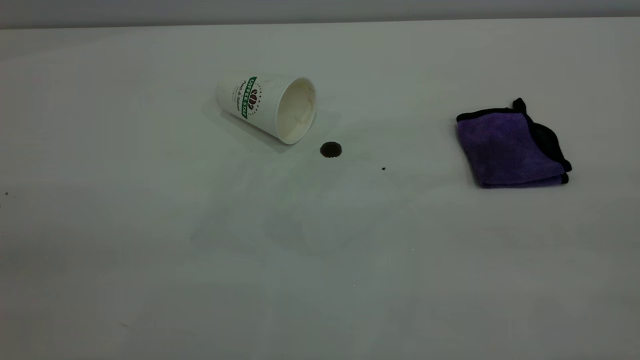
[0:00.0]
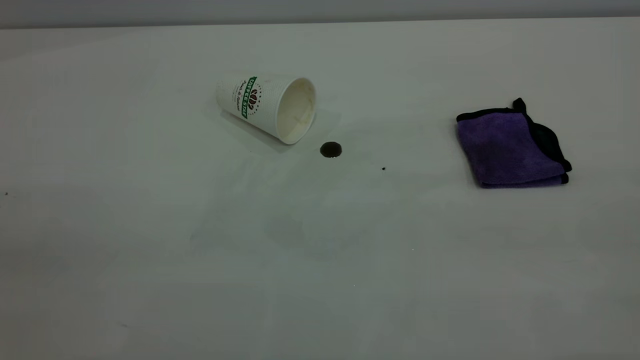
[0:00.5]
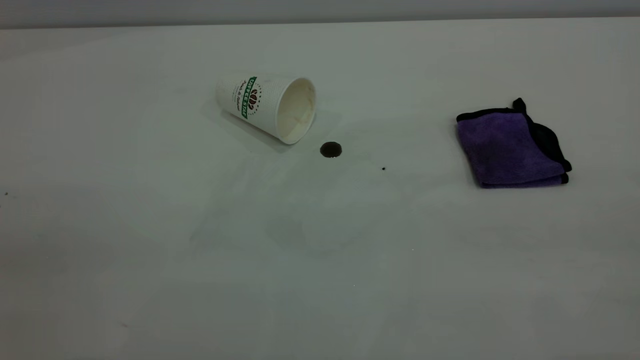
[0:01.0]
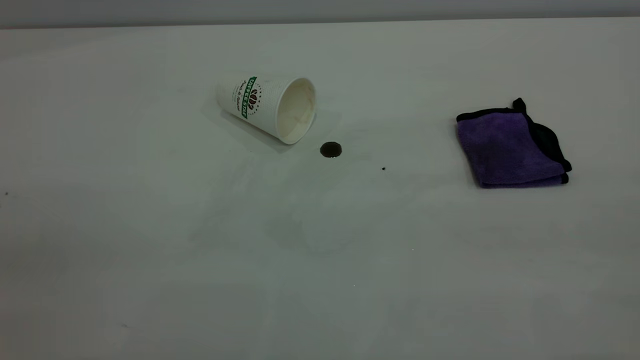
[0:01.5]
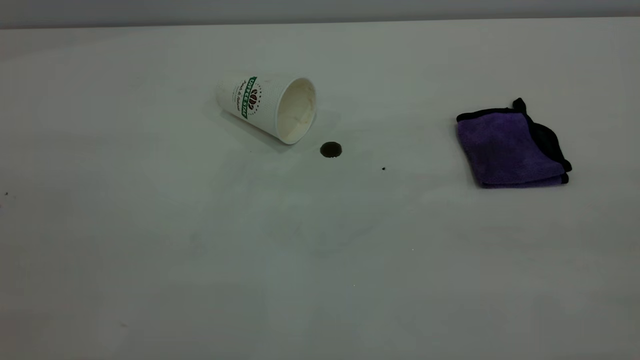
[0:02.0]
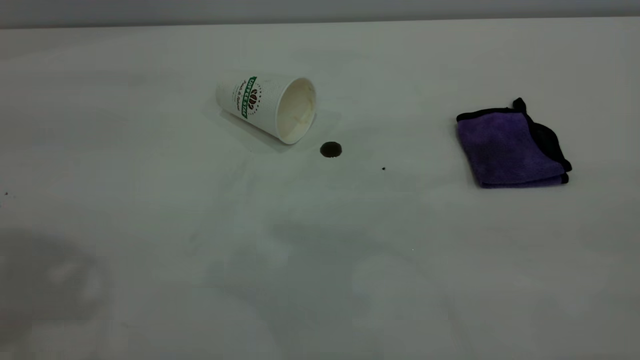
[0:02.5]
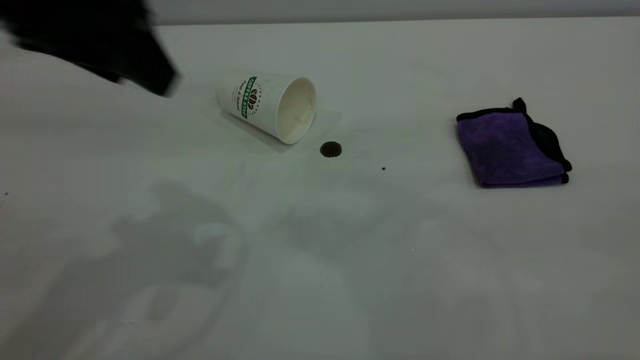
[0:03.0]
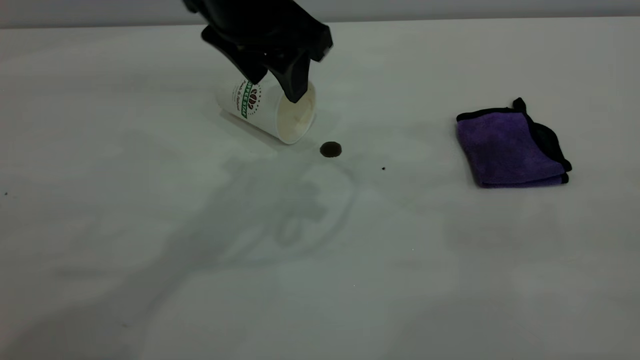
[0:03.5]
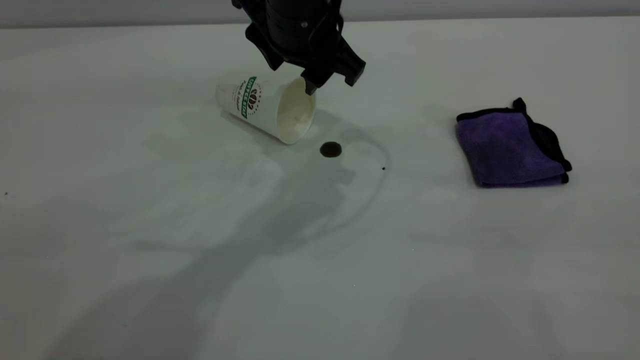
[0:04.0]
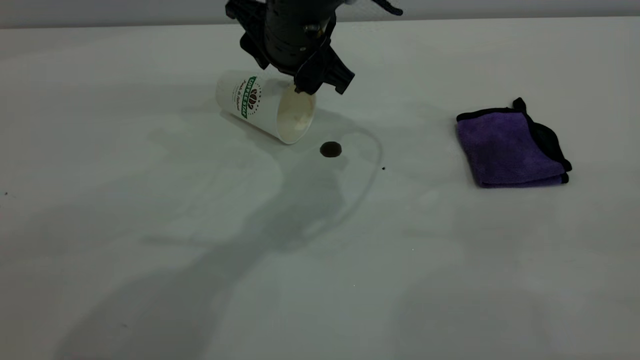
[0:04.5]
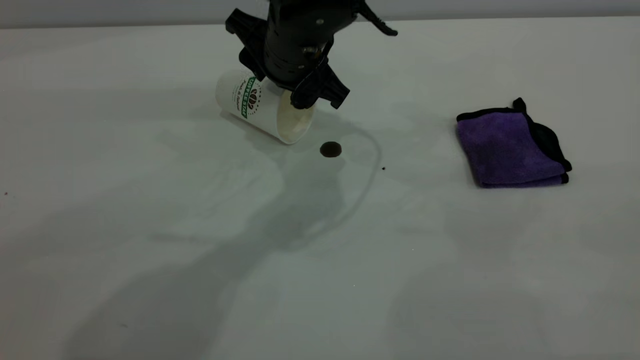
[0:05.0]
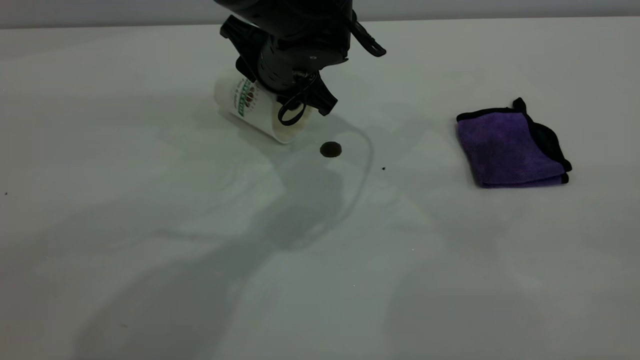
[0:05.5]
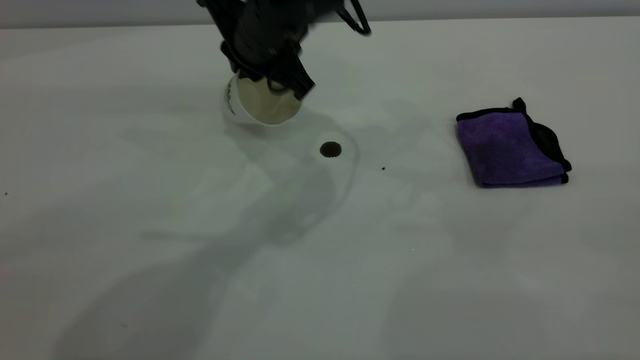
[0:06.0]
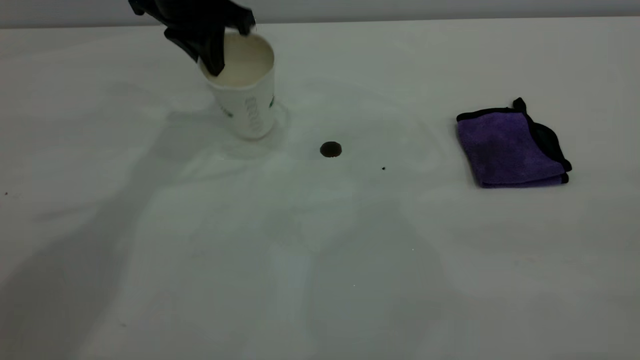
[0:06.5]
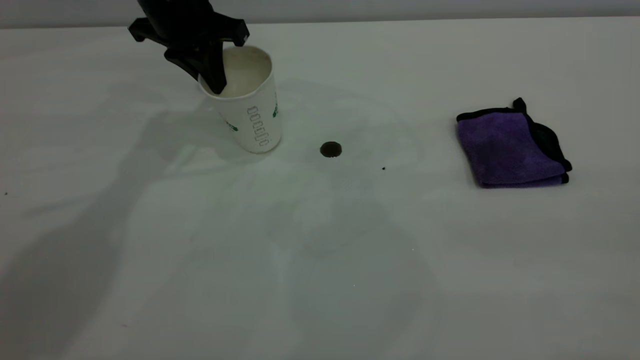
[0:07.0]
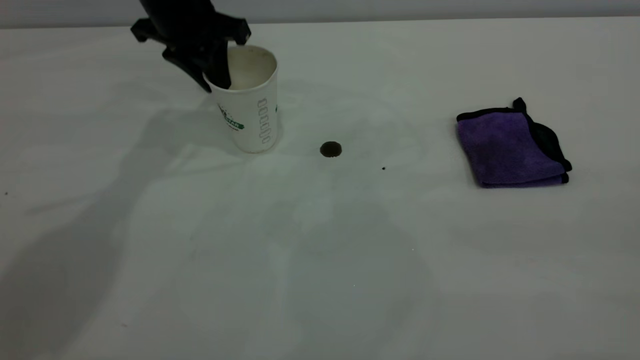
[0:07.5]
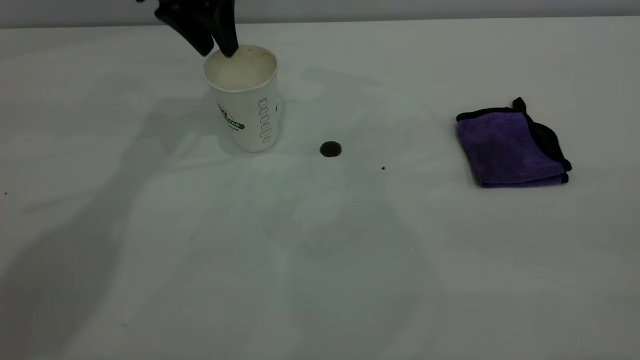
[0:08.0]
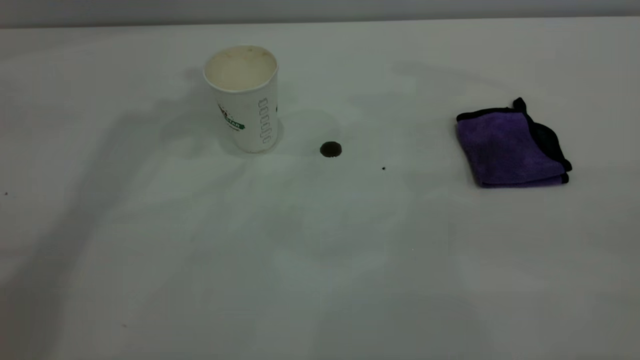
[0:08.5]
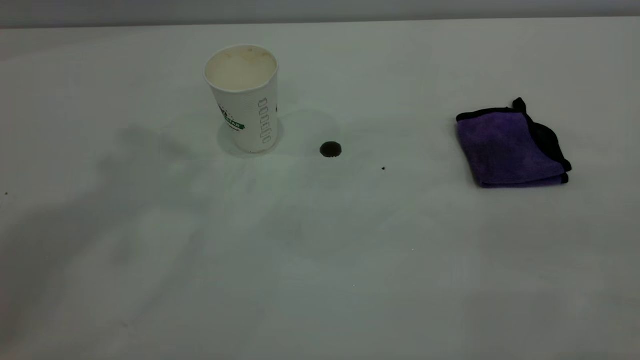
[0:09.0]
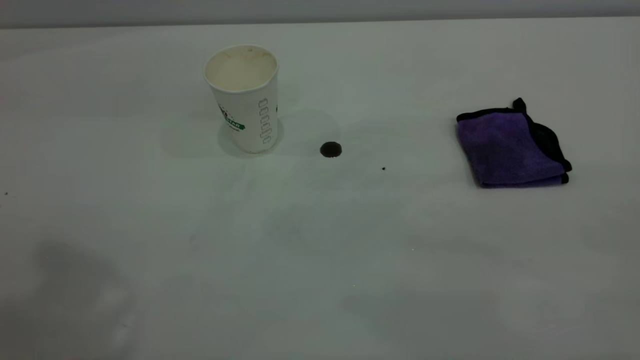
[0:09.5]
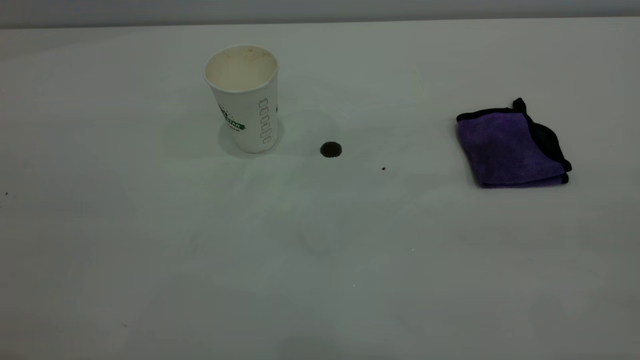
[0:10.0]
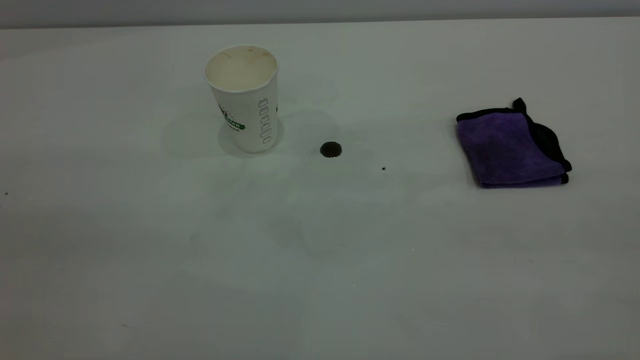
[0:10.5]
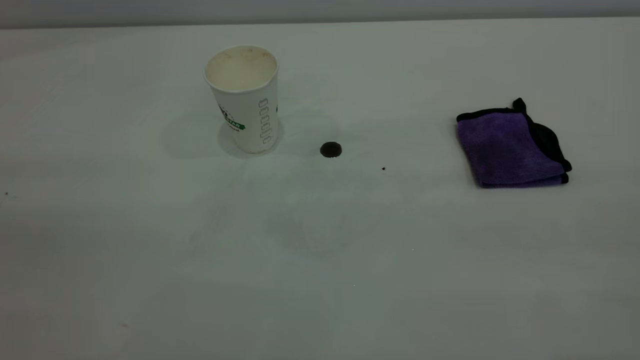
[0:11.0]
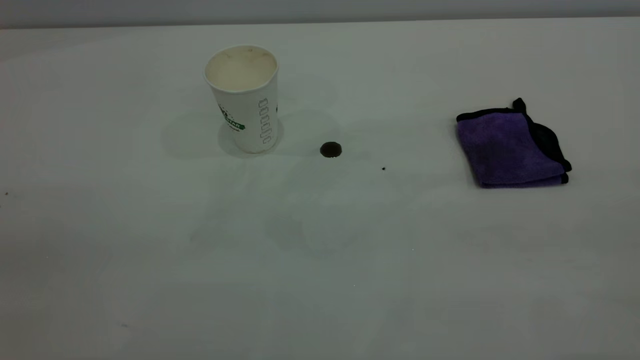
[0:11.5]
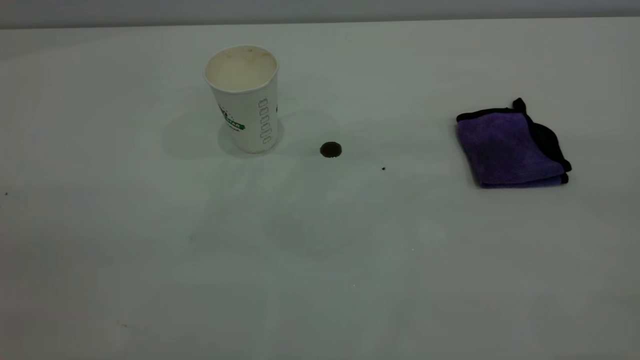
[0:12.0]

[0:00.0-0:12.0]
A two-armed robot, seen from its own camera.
Task of the whole recording: the left gripper pick up the fallen cup and place it upright, the right gripper grasp the purple rag and wipe the coffee stain on the table, the right gripper put the purple rag back in its original position.
Step, 0:00.0 to 0:08.0: Stand the paper cup upright.
0:02.0 to 0:04.0: The left gripper heads forward, to the right and downward, covering roughly 50 cm.
0:04.0 to 0:06.0: The left gripper closes up.
0:06.0 to 0:08.0: The left gripper heads to the left, forward and upward, covering about 15 cm, and opens.
0:08.0 to 0:10.0: The left gripper shifts approximately 40 cm backward and upward.

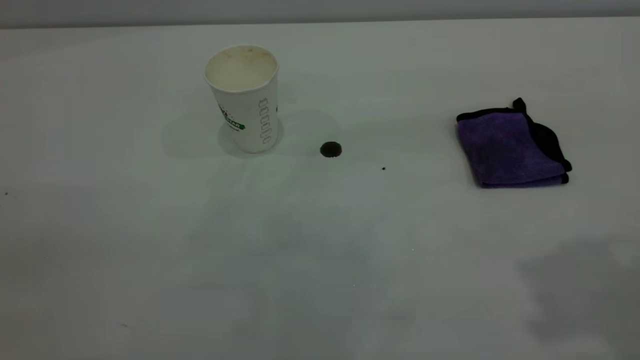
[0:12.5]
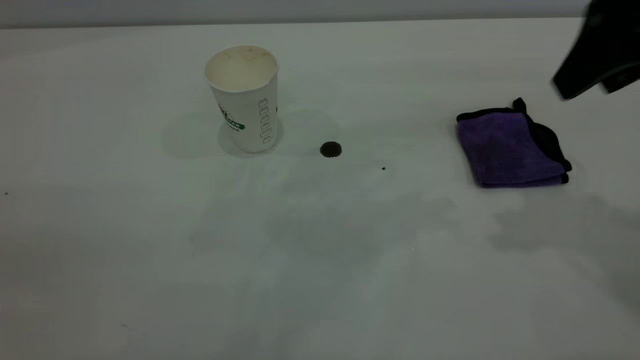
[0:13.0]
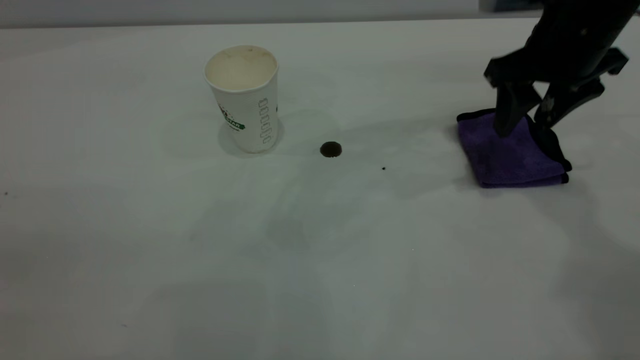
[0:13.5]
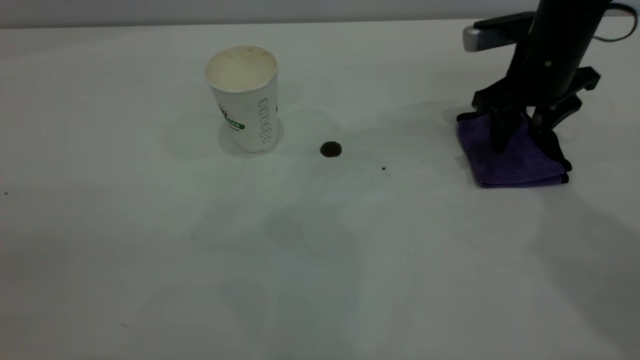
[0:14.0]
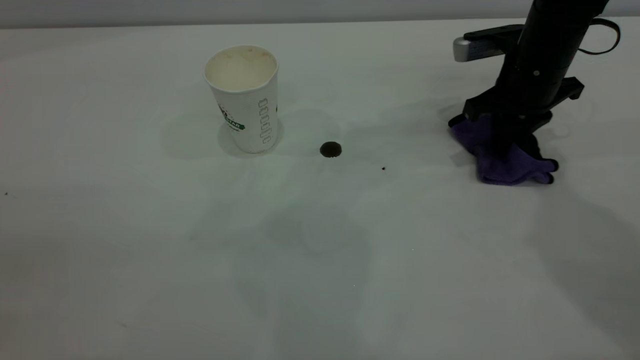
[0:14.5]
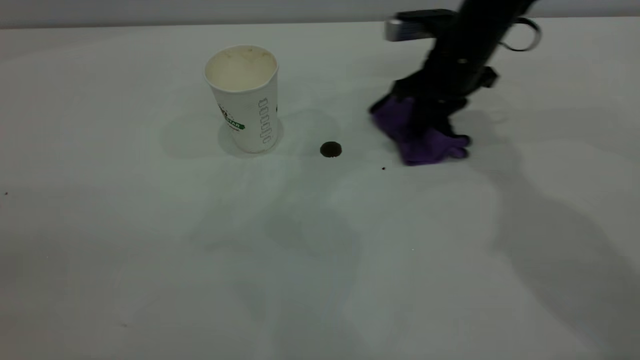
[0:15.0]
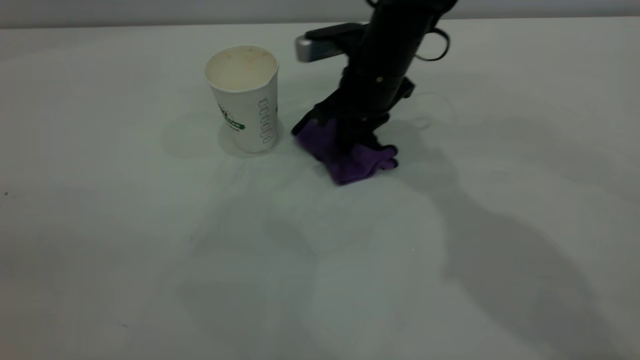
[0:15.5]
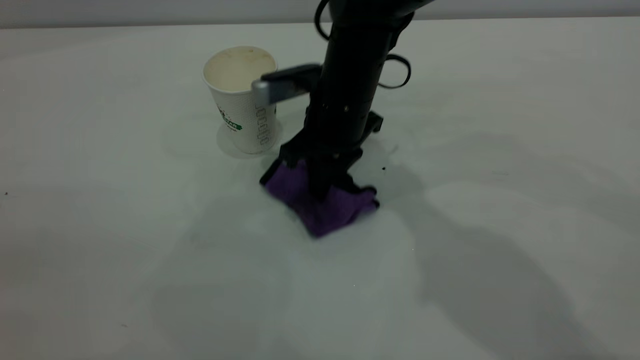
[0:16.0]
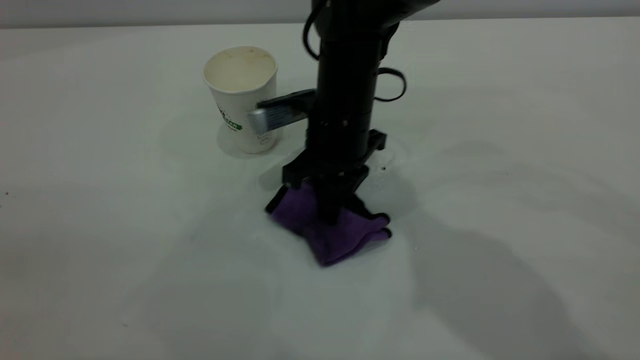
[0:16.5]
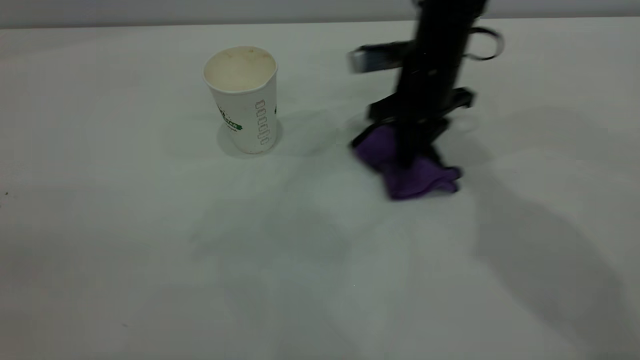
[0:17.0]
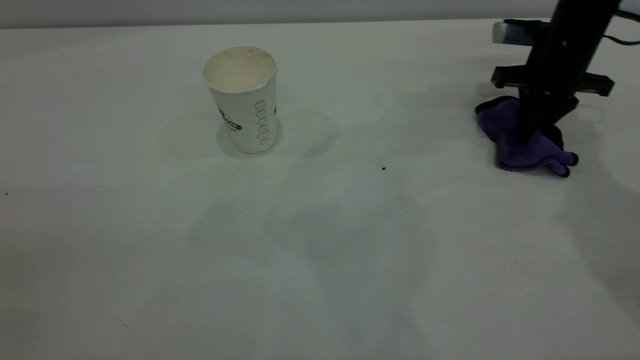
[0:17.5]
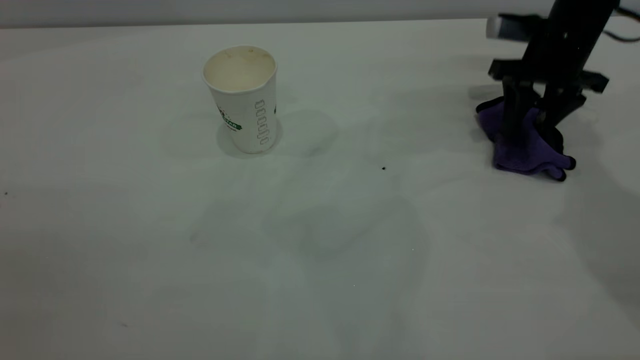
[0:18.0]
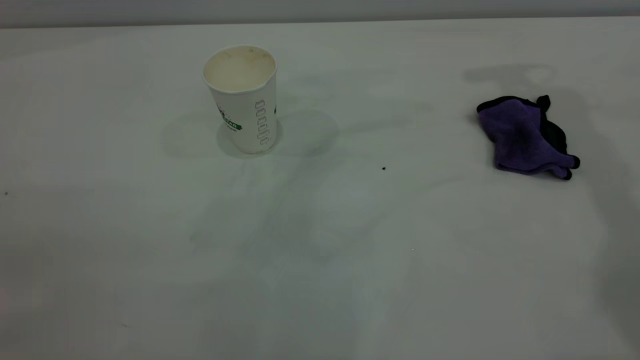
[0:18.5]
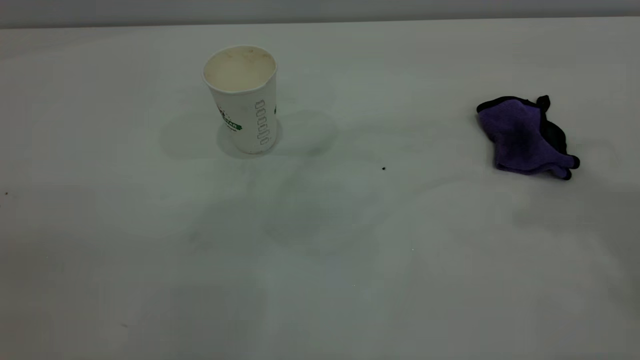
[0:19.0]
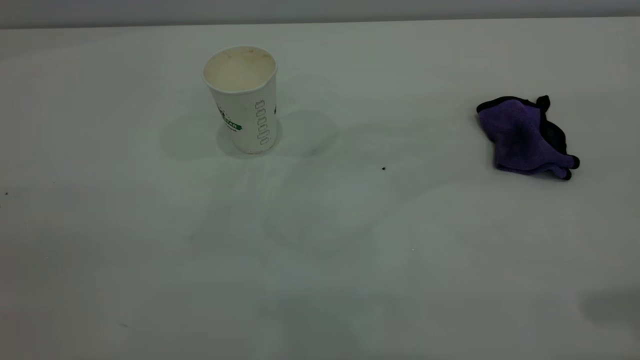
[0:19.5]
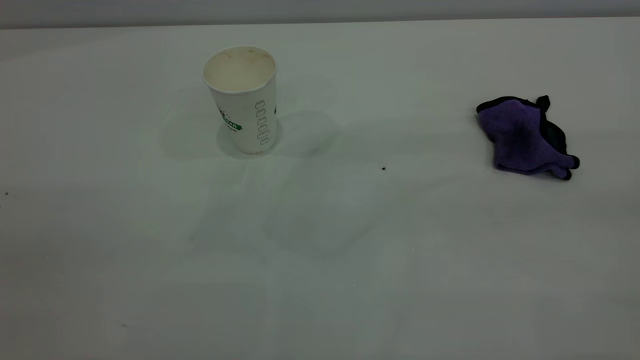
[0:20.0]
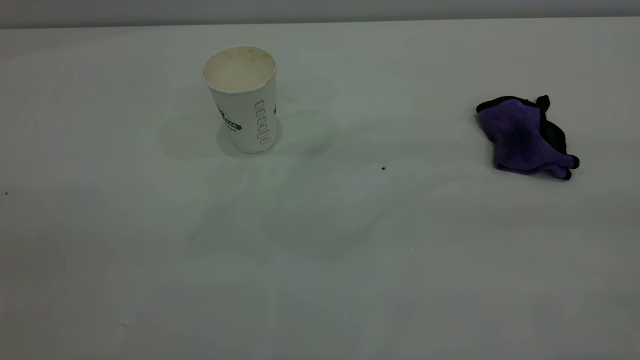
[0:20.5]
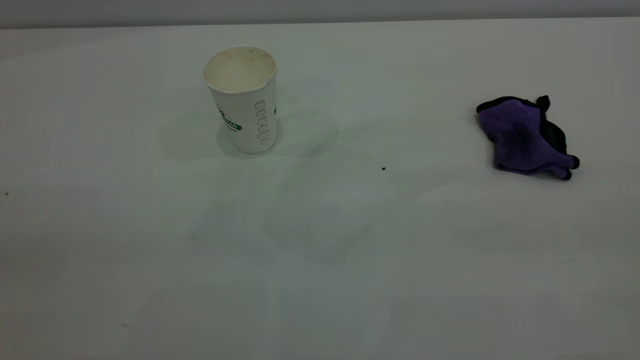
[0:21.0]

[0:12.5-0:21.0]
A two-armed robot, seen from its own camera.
Task of the whole recording: the left gripper pick up the fallen cup and place it upright, the right gripper grasp the purple rag and wipe the coffee stain on the table, the right gripper put the purple rag back in its original position.
Step, 0:12.5 to 0:18.0: Wipe the stains off the table with a rag.
0:12.5 to 0:14.5: The right gripper goes approximately 35 cm downward and forward, and closes its fingers.
0:14.5 to 0:16.5: The right gripper goes about 20 cm to the left.
0:16.5 to 0:19.0: The right gripper goes about 40 cm upward and to the right, and opens up.
